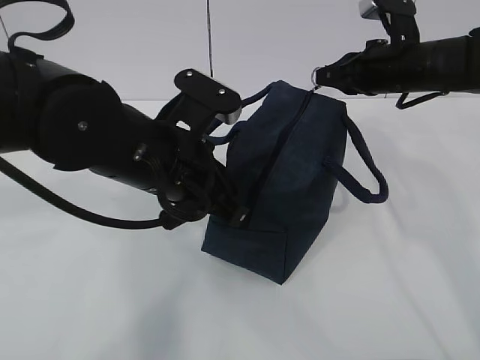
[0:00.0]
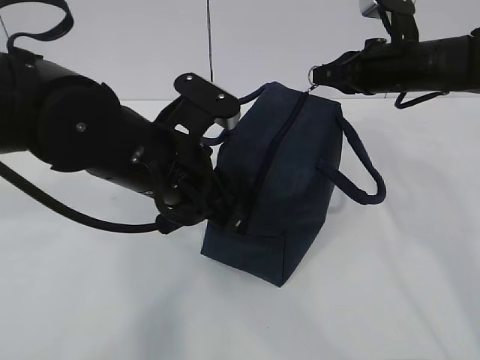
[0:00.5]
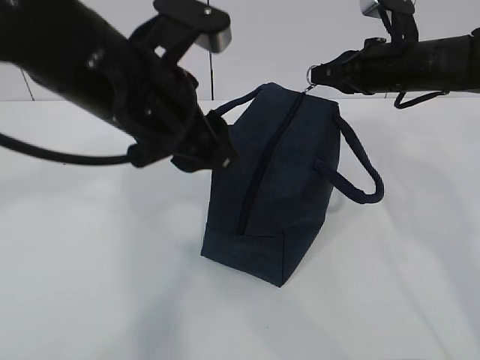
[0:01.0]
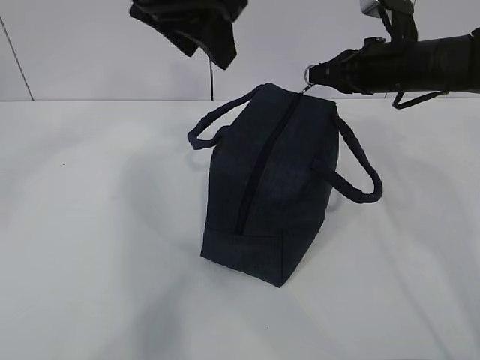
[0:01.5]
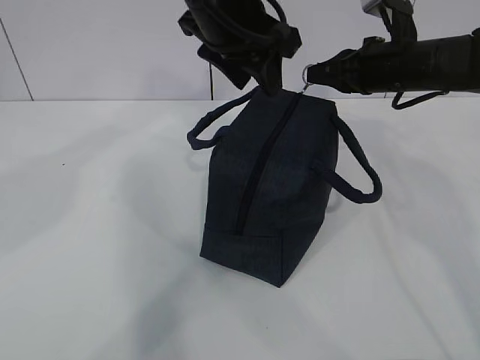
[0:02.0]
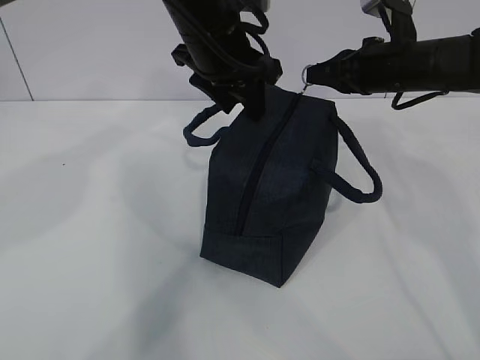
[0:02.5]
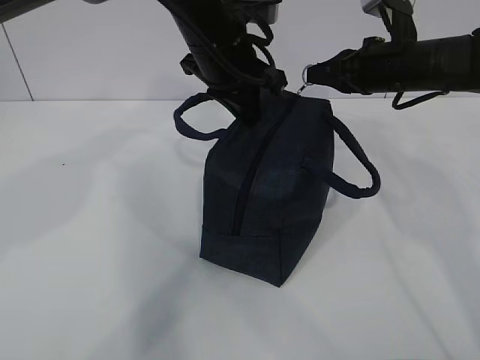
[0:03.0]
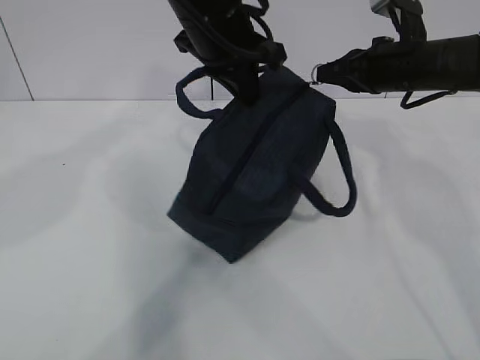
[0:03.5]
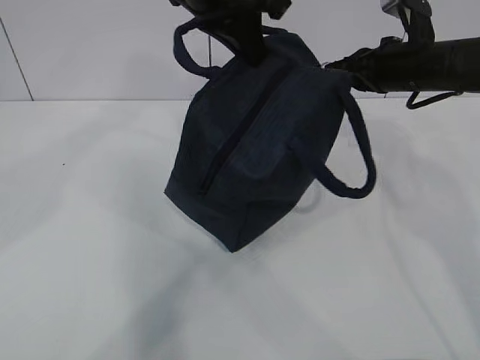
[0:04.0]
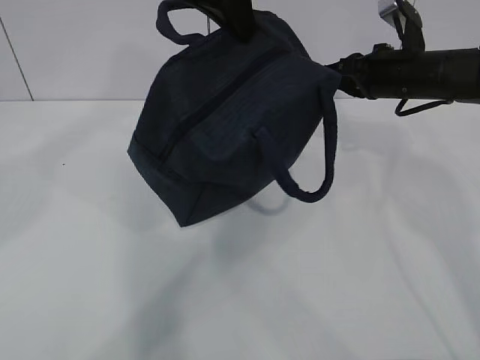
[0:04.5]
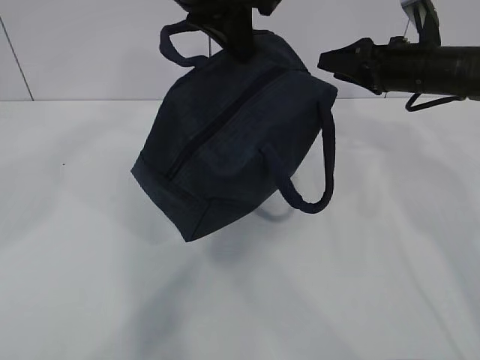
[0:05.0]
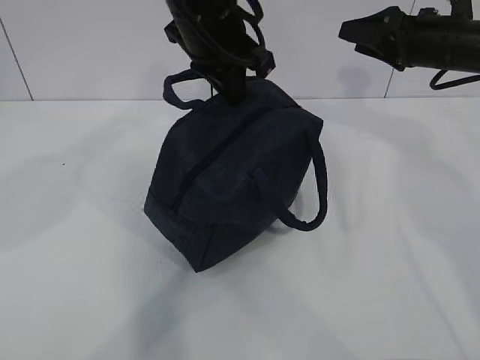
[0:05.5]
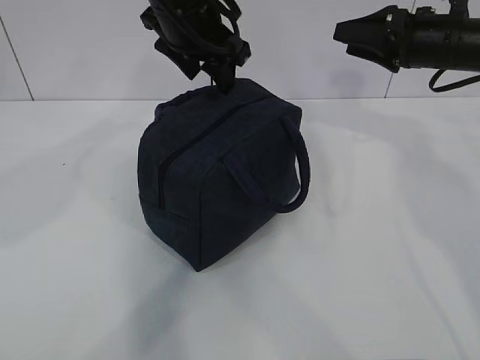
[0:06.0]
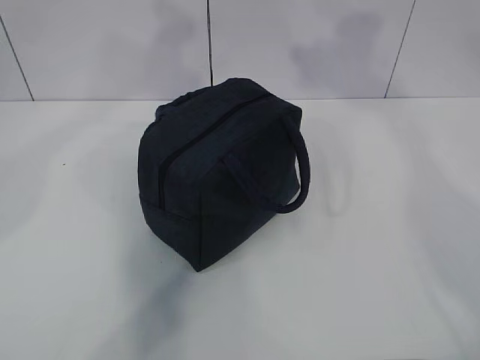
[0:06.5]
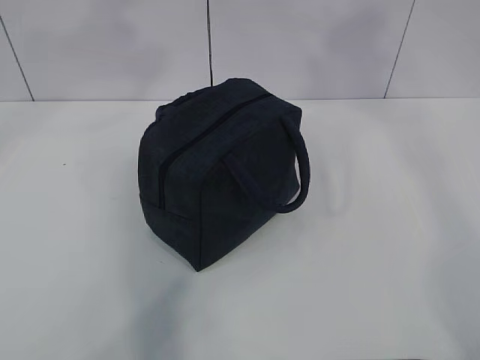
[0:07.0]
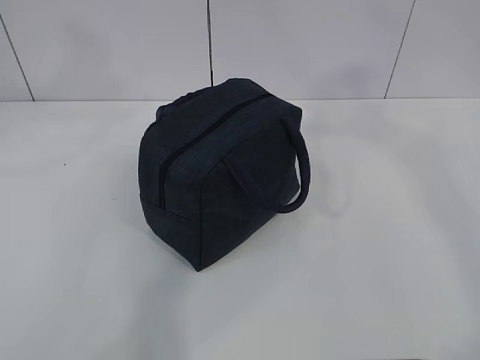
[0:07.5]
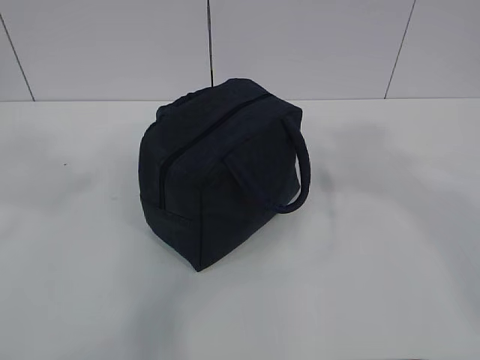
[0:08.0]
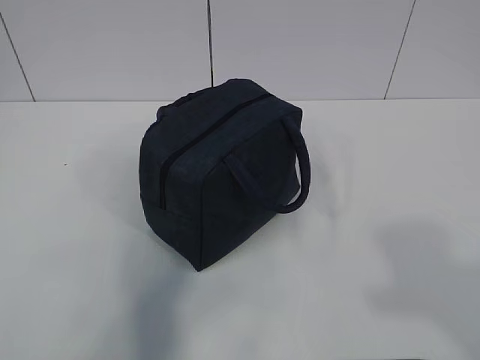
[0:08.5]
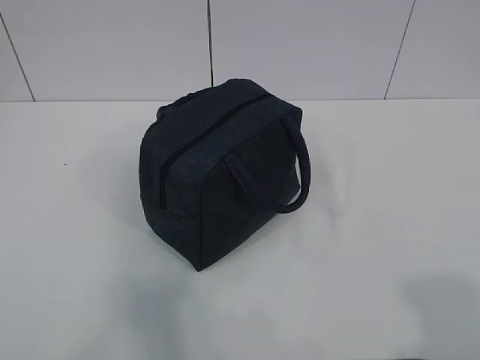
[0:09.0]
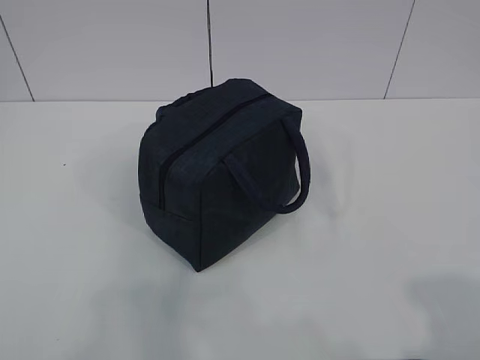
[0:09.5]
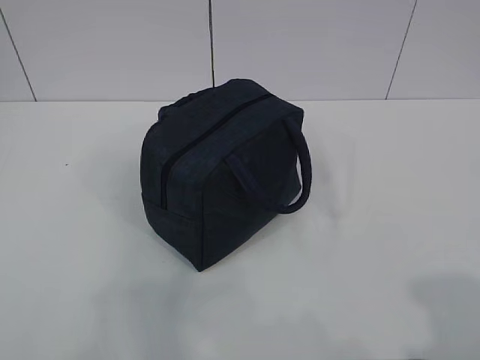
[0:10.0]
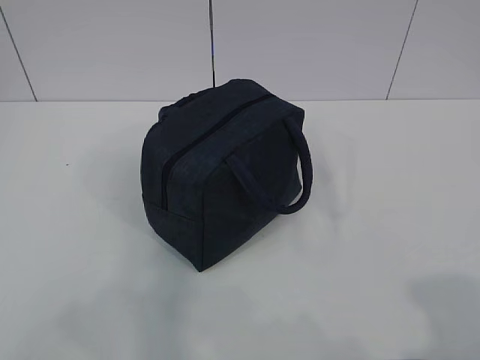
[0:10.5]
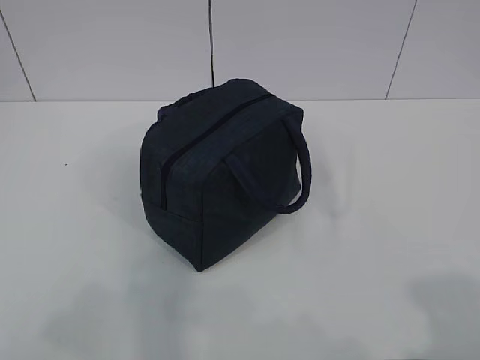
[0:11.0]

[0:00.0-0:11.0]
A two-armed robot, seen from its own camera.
0:00.0 to 0:02.0: The left gripper moves upward and forward, about 15 cm, and opens its fingers.
0:02.0 to 0:03.5: The left gripper closes.
0:03.5 to 0:05.5: The right gripper opens its fingers. The left gripper reaches about 10 cm upward, then returns.
0:05.5 to 0:07.5: The left gripper heads upward, backward and to the left, covering roughly 30 cm, and opens up; the right gripper travels backward and upward by roughly 40 cm, and closes up.
0:07.5 to 0:09.0: The right gripper is displaced downward and backward by some 30 cm.
0:09.0 to 0:11.0: The right gripper ends up about 5 cm from where it was.

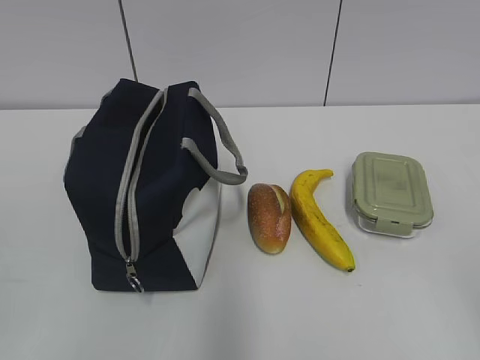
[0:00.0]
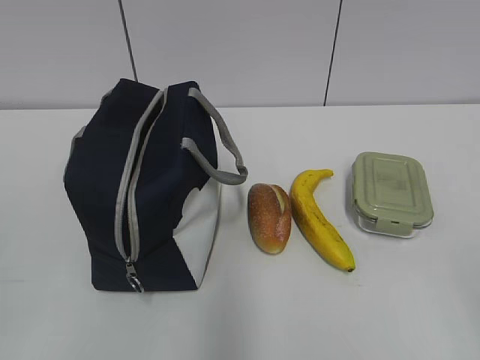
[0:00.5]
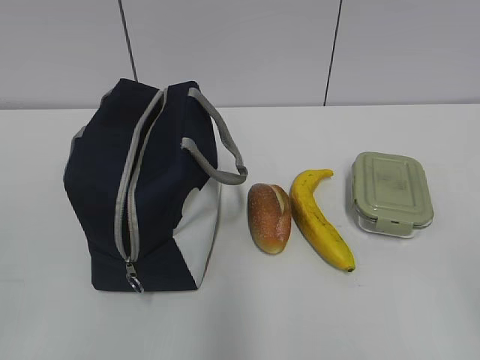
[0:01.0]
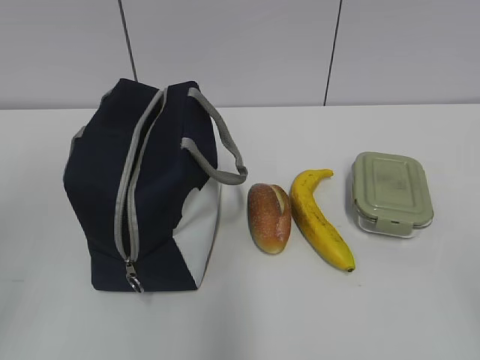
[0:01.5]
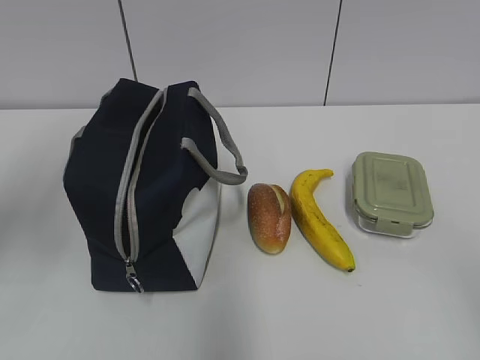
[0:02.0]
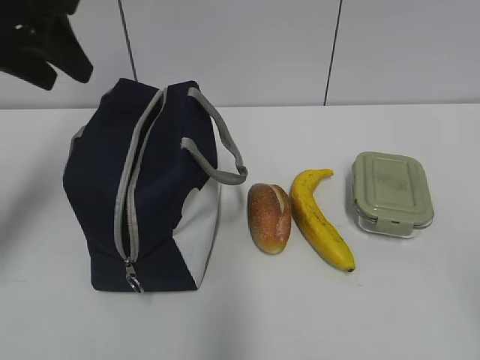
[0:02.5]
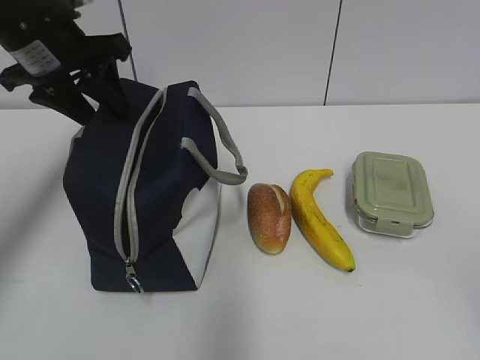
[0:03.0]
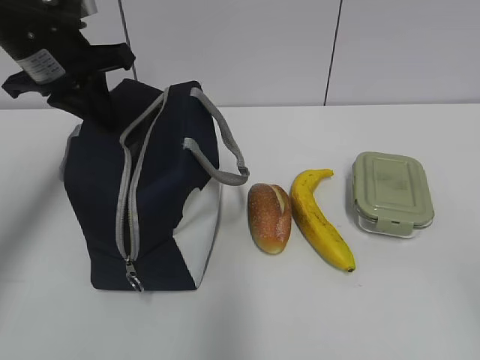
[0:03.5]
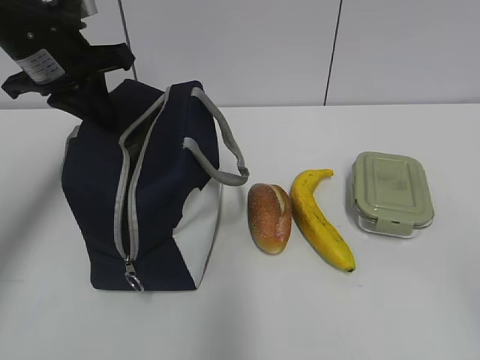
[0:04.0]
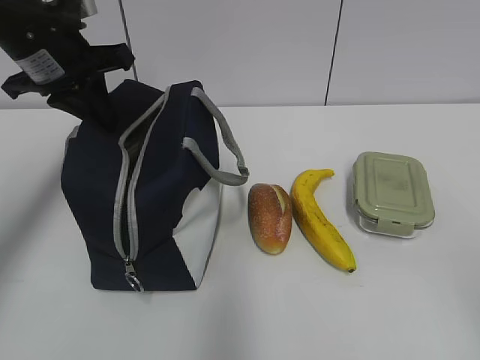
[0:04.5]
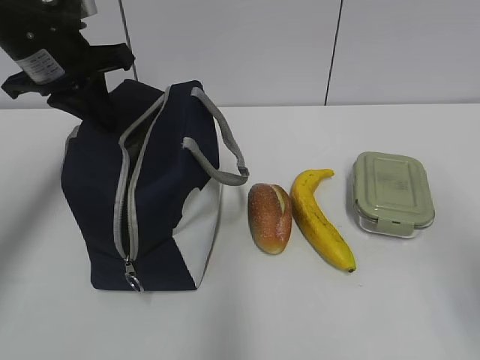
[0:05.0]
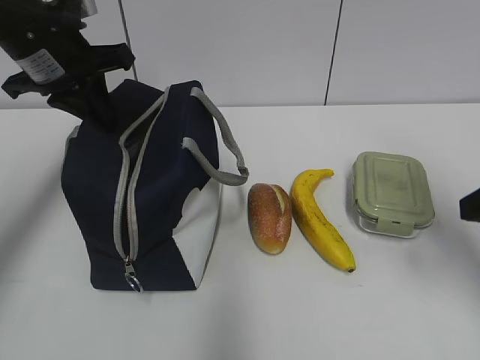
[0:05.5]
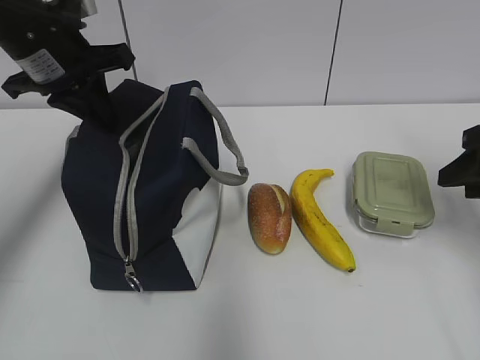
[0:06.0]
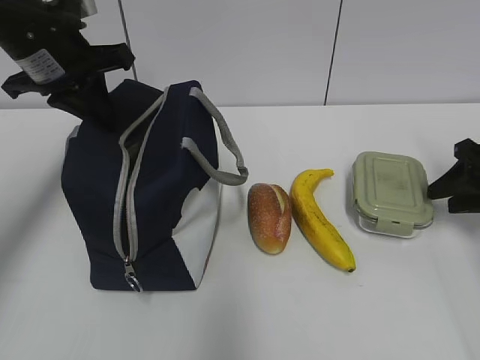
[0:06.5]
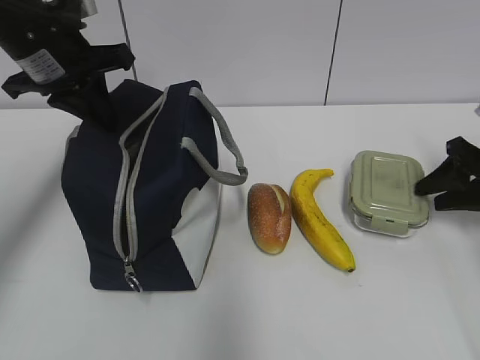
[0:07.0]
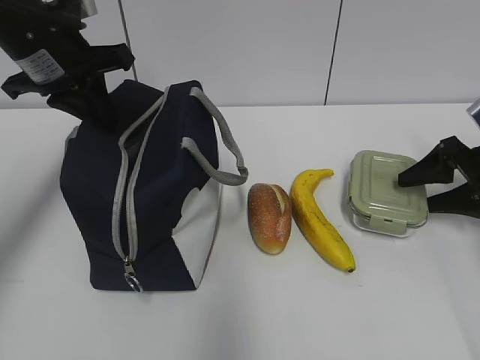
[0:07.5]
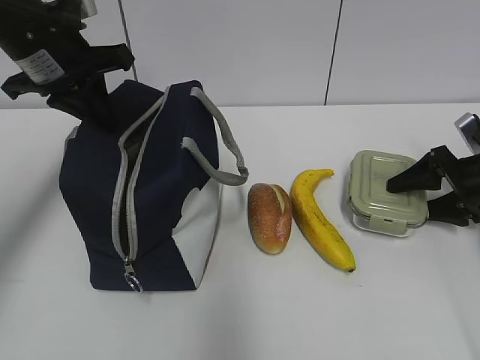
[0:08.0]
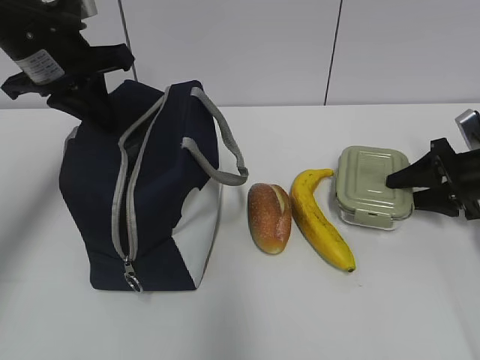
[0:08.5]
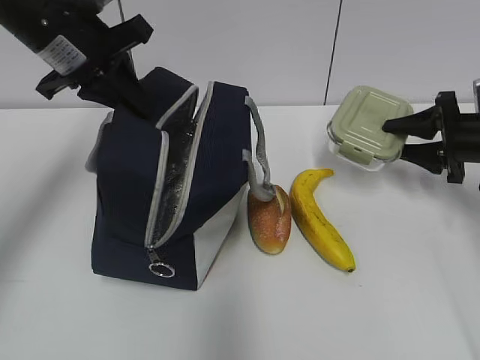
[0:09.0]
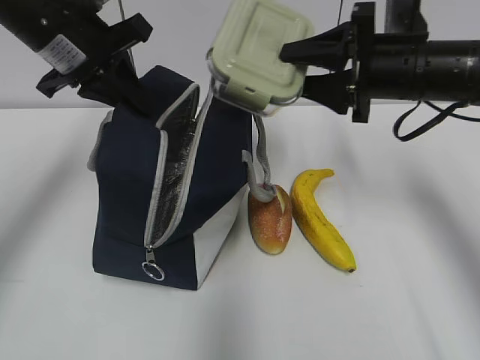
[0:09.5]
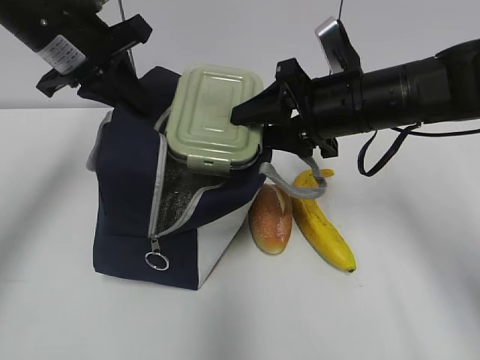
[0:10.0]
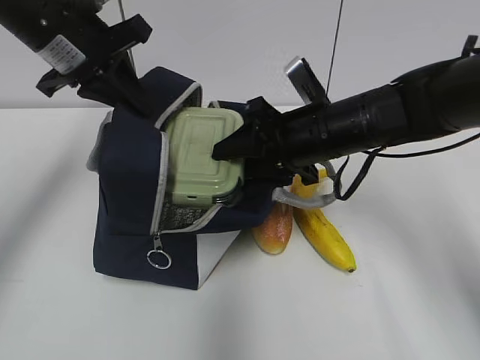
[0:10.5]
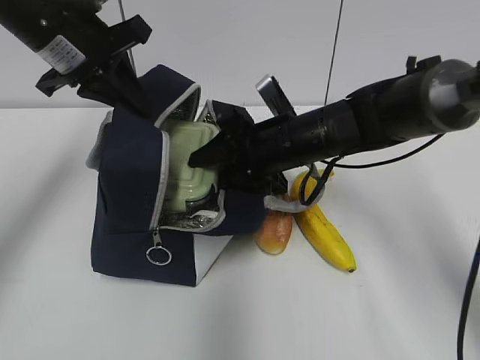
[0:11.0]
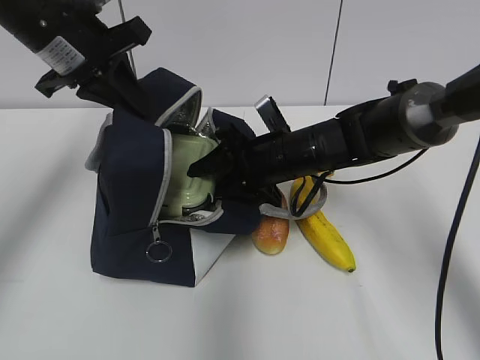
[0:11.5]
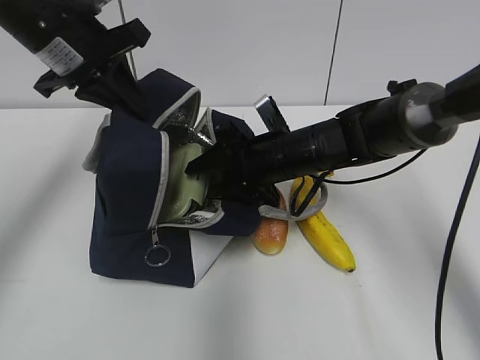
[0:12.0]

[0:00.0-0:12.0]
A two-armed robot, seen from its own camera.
0:02.0 to 0:04.0: The left gripper shifts roughly 20 cm forward and to the right, and closes up.
0:04.0 to 0:06.0: The right gripper heads forward, covering about 30 cm.
0:06.0 to 0:08.0: The right gripper heads downward and forward, covering approximately 15 cm, and opens its fingers.
0:08.0 to 0:10.0: The right gripper moves to the left and upward, approximately 25 cm.
0:10.0 to 0:12.0: The right gripper shifts roughly 10 cm downward and to the left.

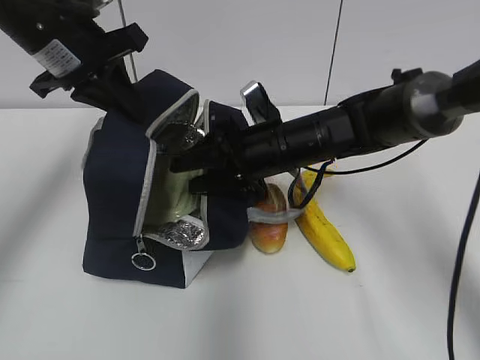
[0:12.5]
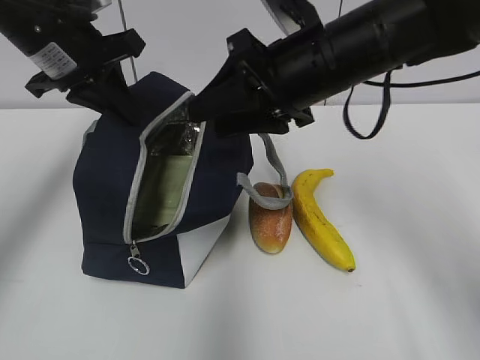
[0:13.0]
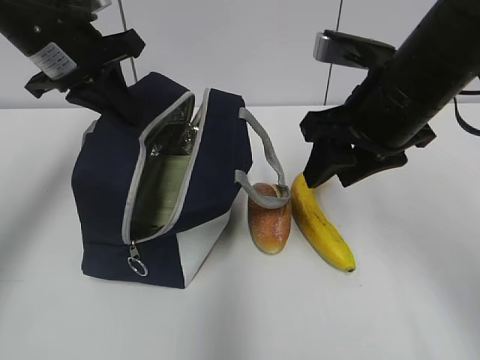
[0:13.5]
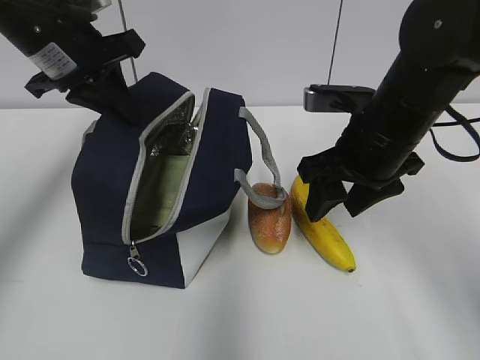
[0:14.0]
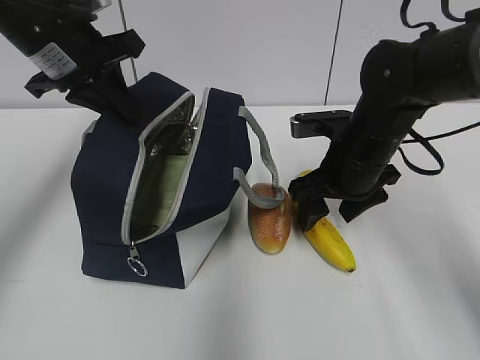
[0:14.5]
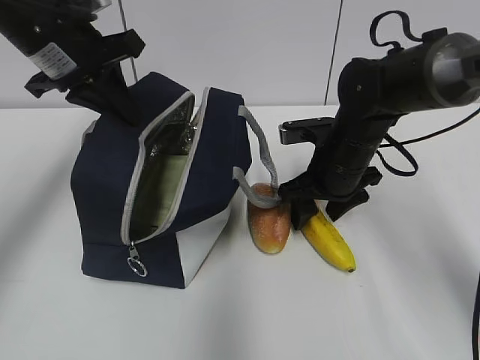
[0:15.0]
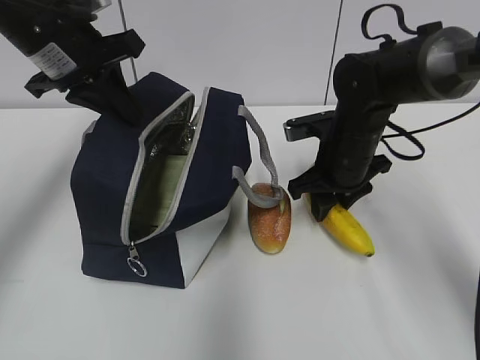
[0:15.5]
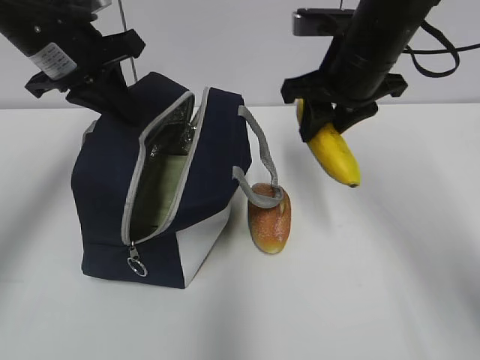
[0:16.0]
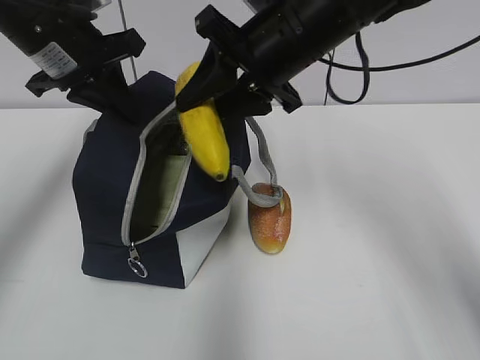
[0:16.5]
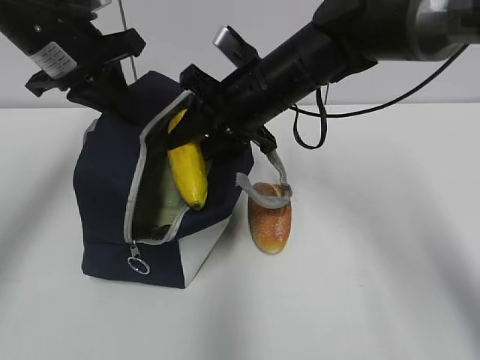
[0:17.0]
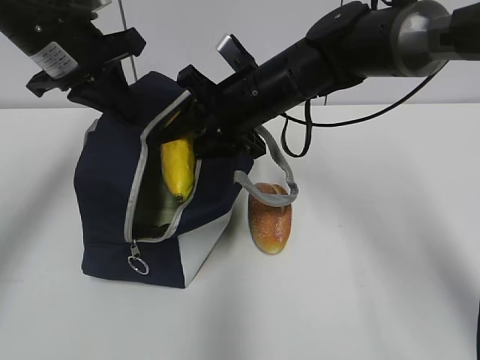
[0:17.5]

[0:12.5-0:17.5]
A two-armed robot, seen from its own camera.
0:12.5 to 0:15.0: The right gripper travels to the right by about 5 cm, and goes upward and returns, about 15 cm each way.
0:15.0 to 0:17.5: The right gripper heads to the left and upward, covering roughly 10 cm, and closes its fingers.
